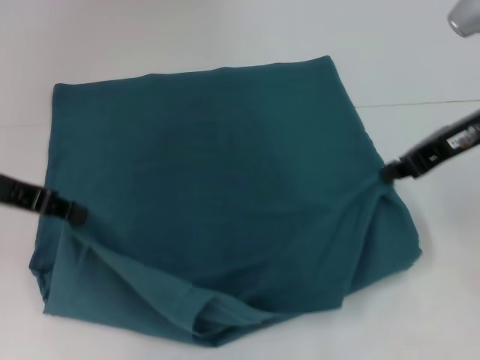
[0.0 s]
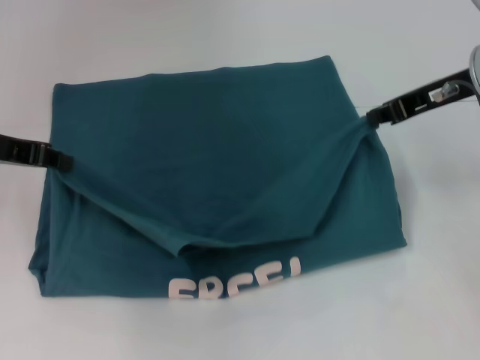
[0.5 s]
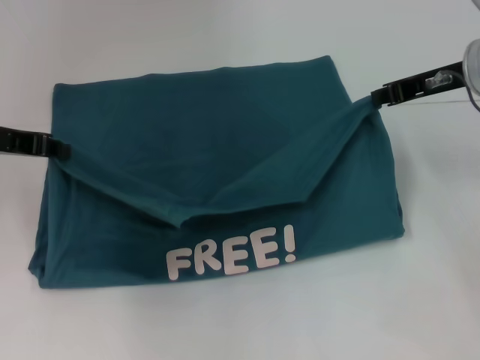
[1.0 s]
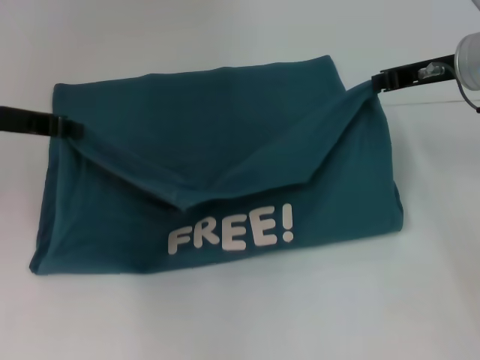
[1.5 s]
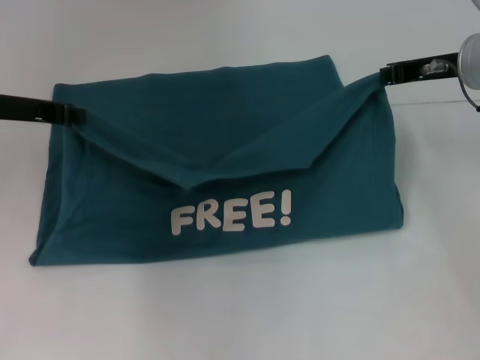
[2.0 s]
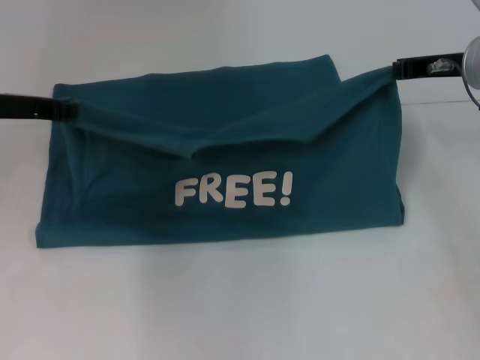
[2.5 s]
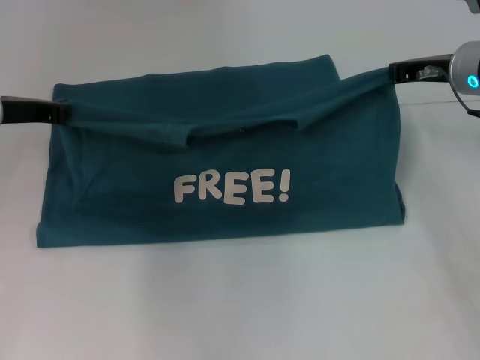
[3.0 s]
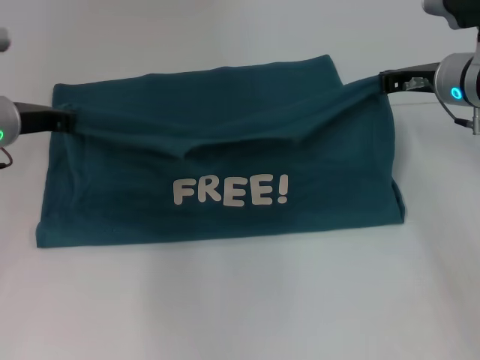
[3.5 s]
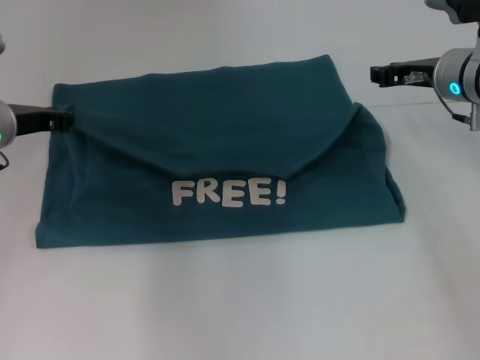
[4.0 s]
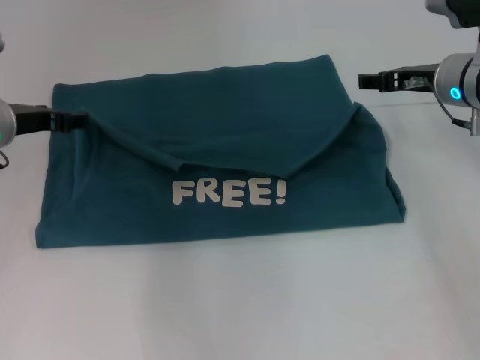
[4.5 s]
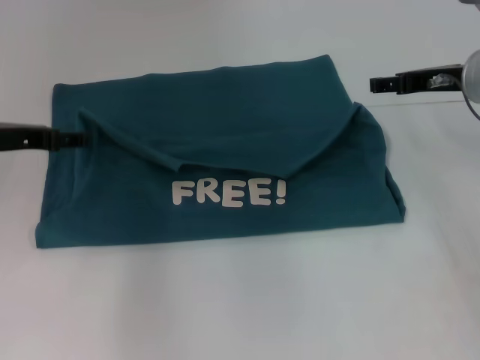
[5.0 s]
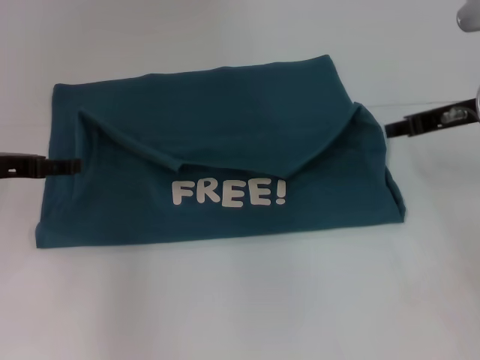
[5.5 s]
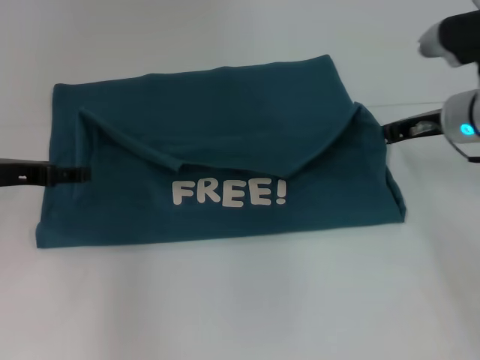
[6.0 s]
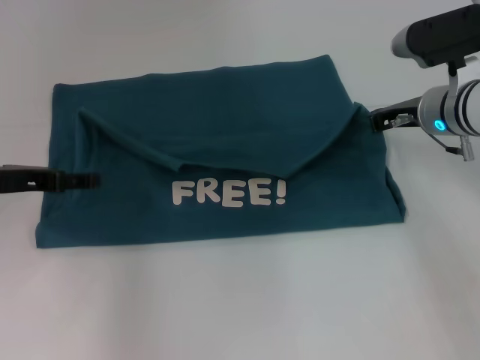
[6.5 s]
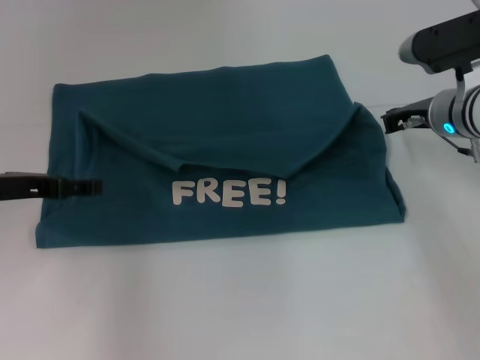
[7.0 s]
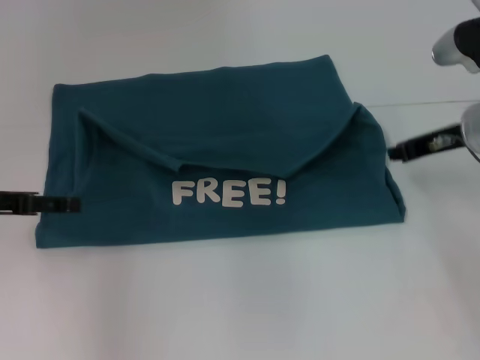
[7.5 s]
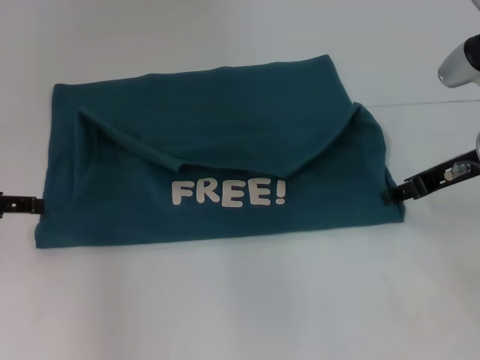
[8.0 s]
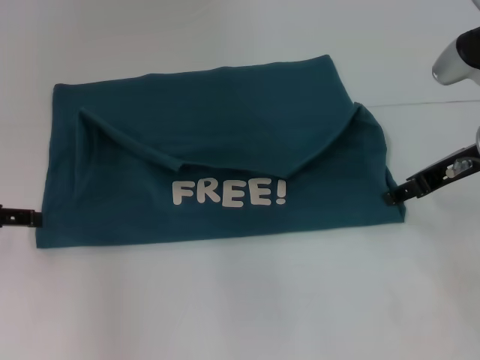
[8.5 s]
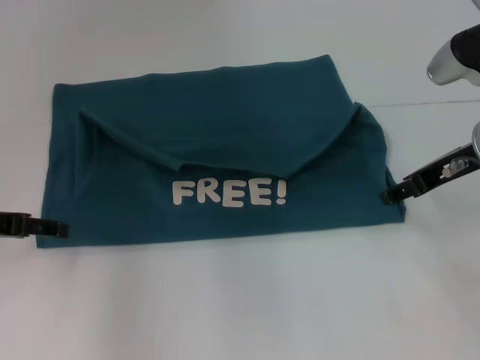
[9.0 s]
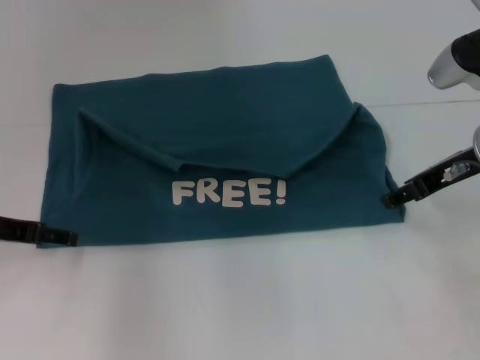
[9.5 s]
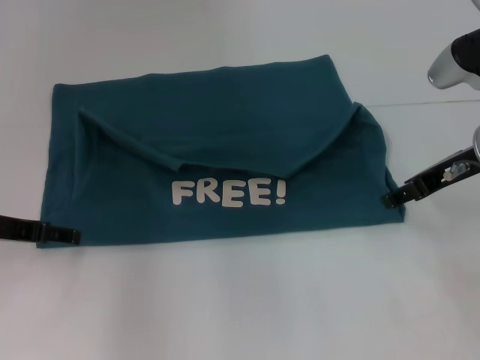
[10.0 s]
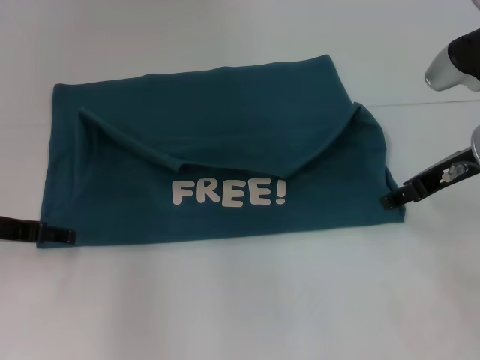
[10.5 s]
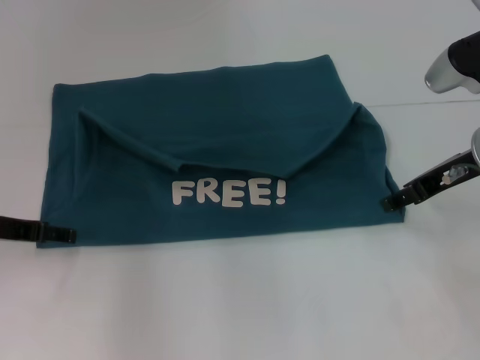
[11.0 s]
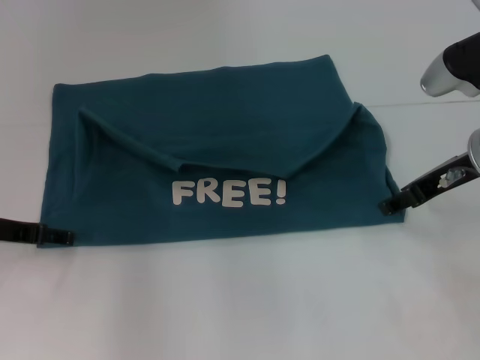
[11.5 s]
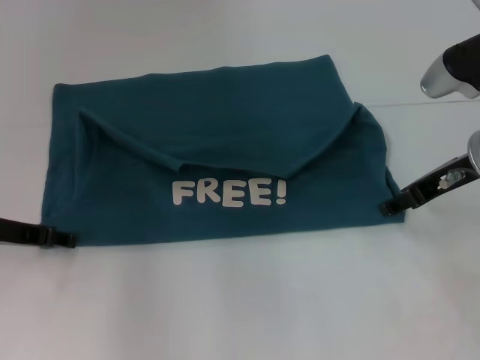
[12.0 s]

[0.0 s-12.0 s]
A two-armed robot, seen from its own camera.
Step, 0.0 to 4.5 s: Fold the clothes to the left.
Step, 0.0 to 4.5 s: Fold the clothes to the right.
0.0 to 2.0 s: The two grippers go roughly 5 cm forward.
2.0 to 4.0 s: The left gripper heads downward, covering roughly 5 cm.
4.0 to 6.0 s: The right gripper opens, then closes again. The left gripper heads backward, covering roughly 5 cm, and opens up.
6.0 to 8.0 s: The left gripper moves roughly 5 cm, while the right gripper heads backward, covering roughly 5 cm, and opens.
8.0 to 10.0 s: The left gripper changes place by about 5 cm.
10.0 to 12.0 s: The grippers move only a little.

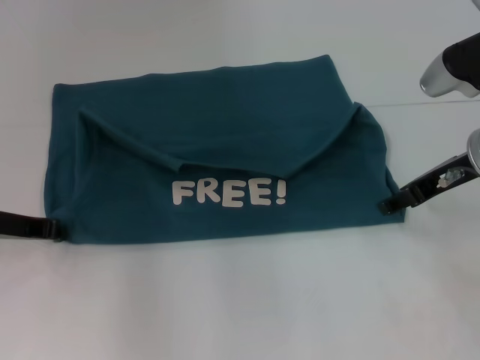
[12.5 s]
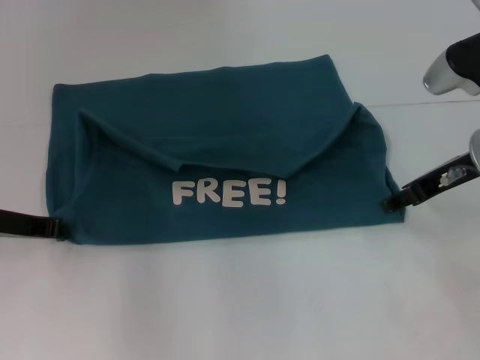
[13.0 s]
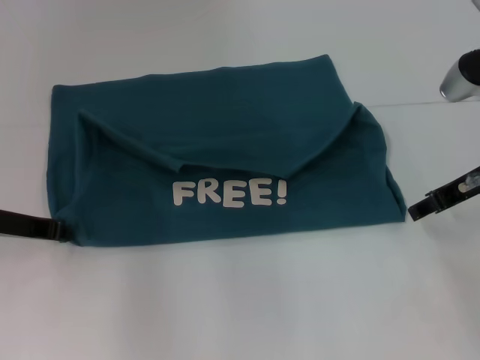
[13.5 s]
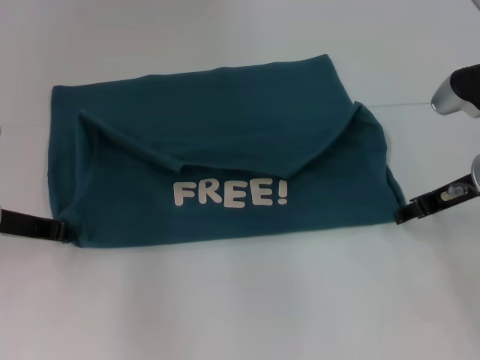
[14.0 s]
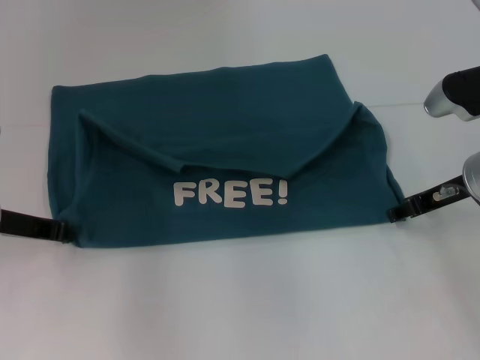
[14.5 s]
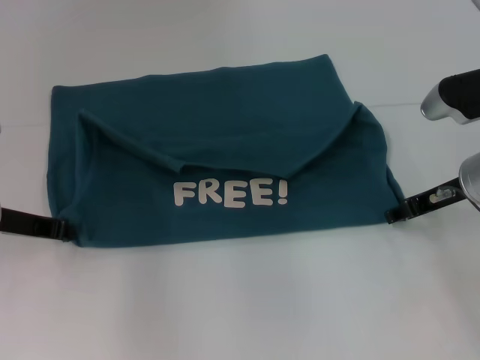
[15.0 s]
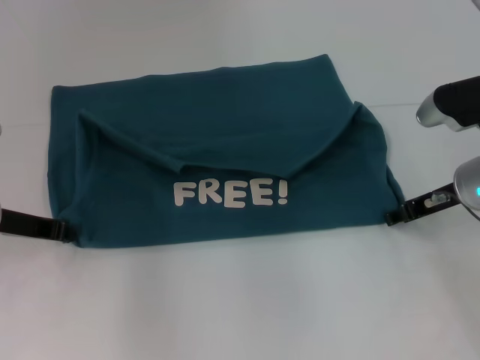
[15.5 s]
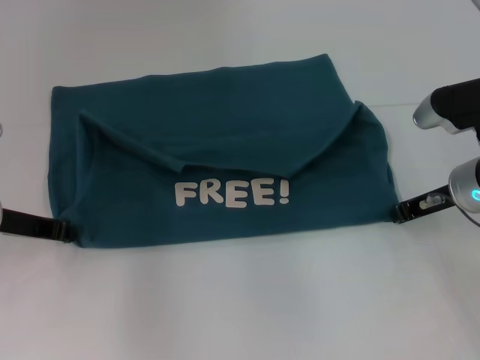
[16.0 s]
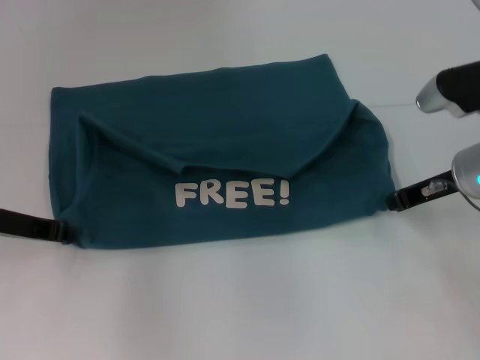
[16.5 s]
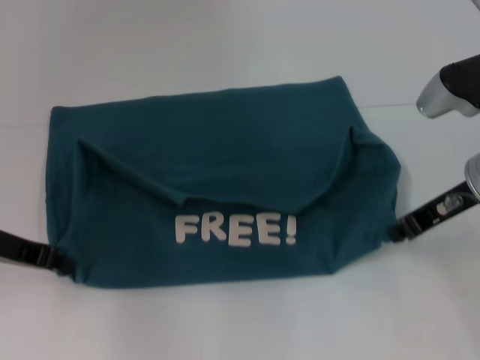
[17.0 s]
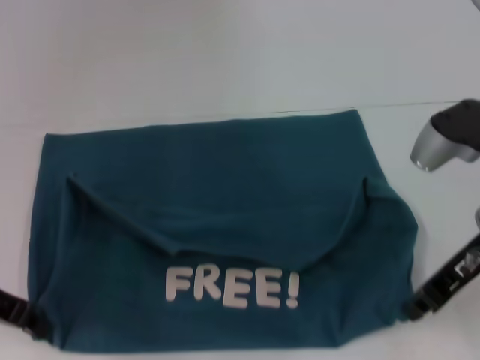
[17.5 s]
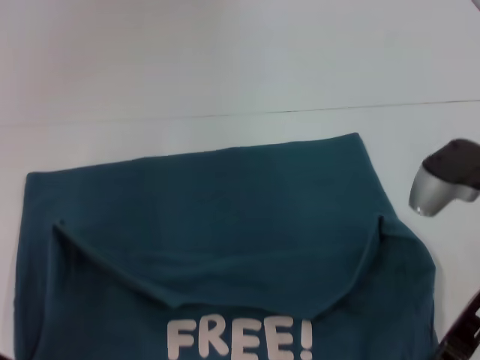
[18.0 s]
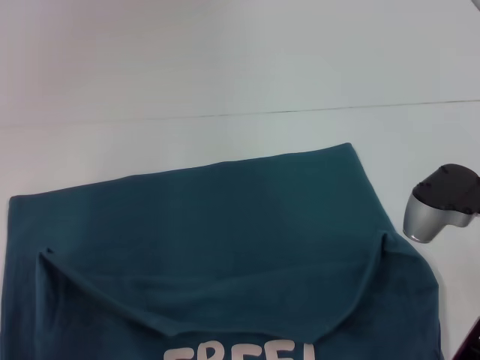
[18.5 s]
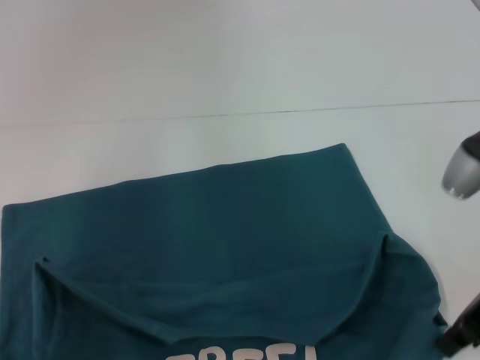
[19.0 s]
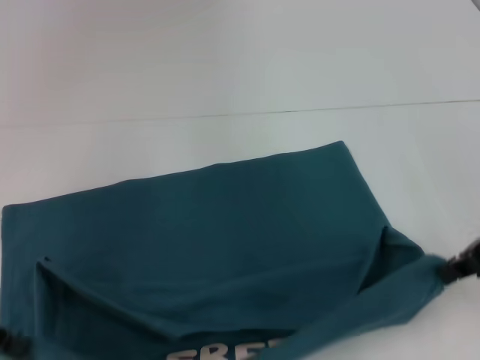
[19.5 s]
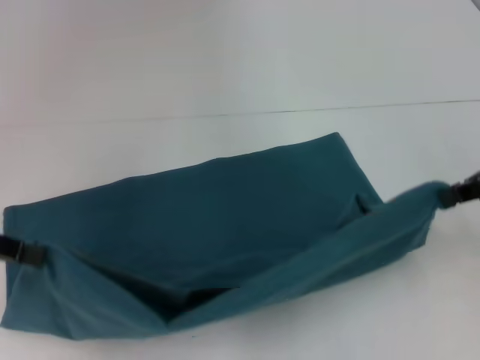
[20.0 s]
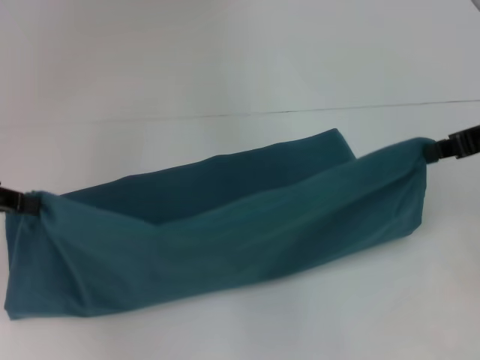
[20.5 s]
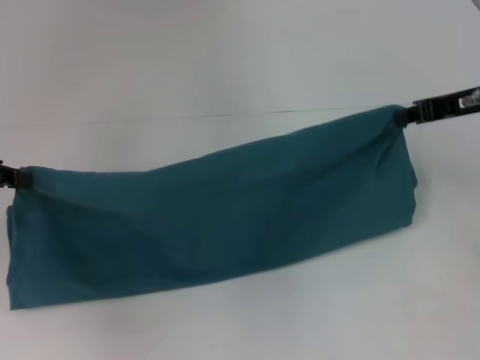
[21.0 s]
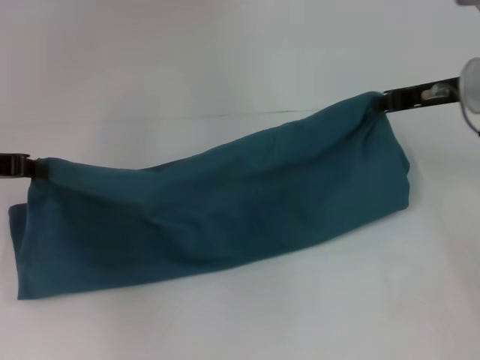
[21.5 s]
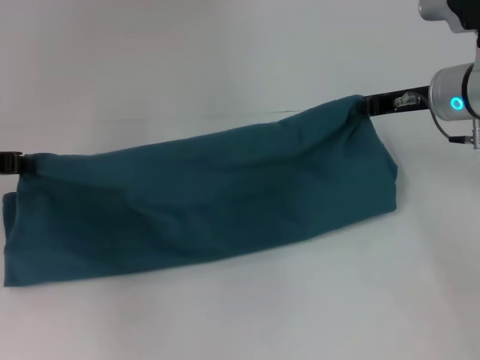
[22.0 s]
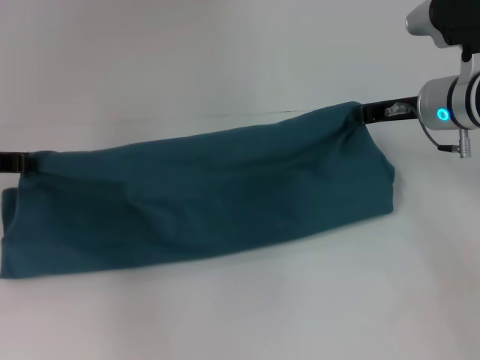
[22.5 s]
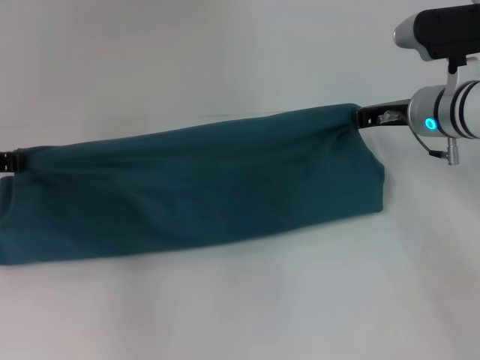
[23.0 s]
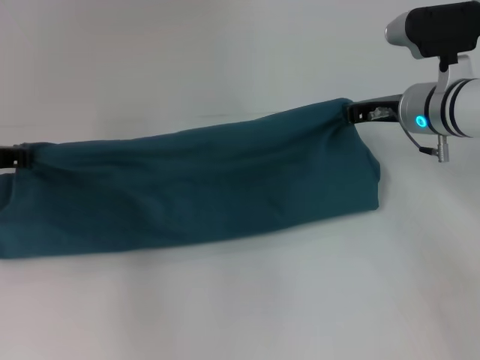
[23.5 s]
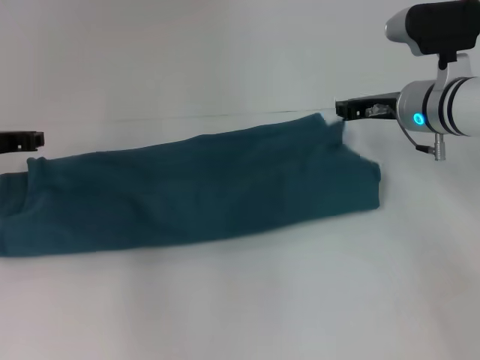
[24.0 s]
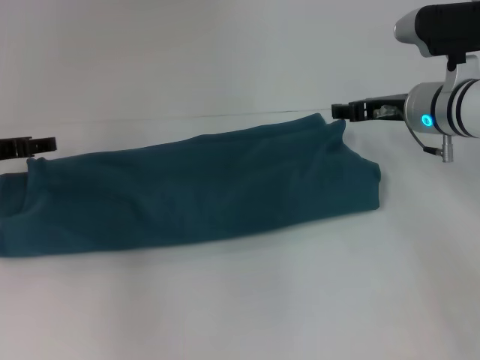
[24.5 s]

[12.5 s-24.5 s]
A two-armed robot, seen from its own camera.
Step, 12.5 to 18.5 s: Pull the clothes with your left hand.
Step, 12.5 to 18.5 s: Pull the clothes with your right hand.
12.5 to 14.5 s: The grippers make only small movements.
14.5 to 16.5 s: The right gripper closes.
16.5 to 18.5 s: Both grippers travel together backward, some 10 cm.
18.5 to 20.5 s: The left gripper moves upward, forward and to the left, approximately 10 cm. Meanwhile the right gripper travels upward, to the right and forward by approximately 15 cm.
20.5 to 22.5 s: The left gripper shifts approximately 10 cm forward and downward; the right gripper moves forward, downward and to the left, approximately 15 cm.
22.5 to 24.5 s: The left gripper opens its fingers. The right gripper opens its fingers.

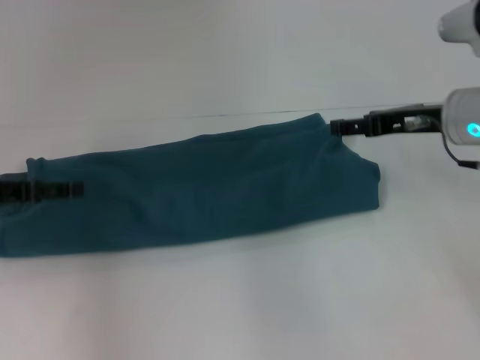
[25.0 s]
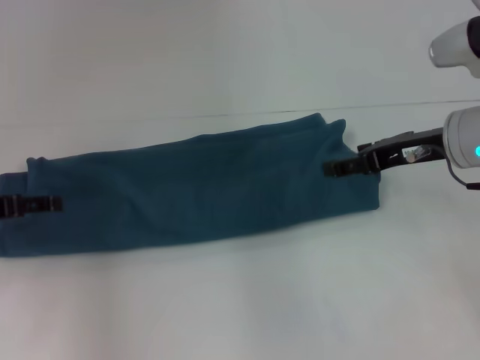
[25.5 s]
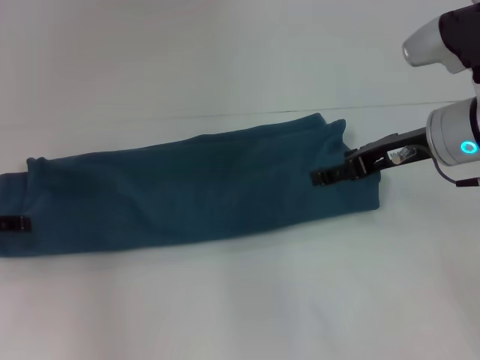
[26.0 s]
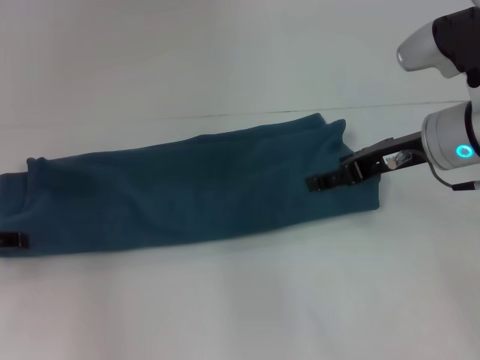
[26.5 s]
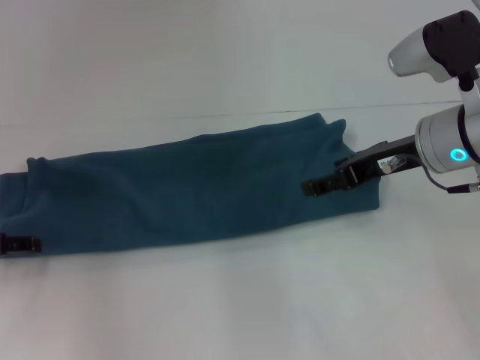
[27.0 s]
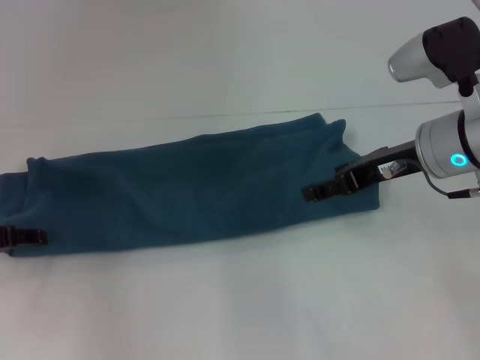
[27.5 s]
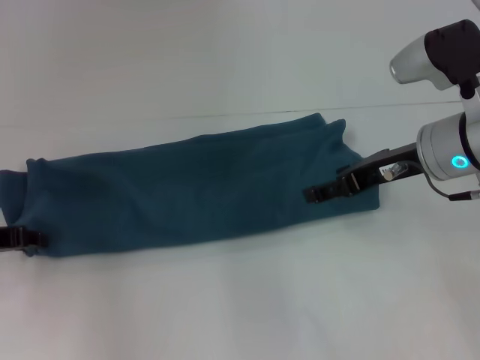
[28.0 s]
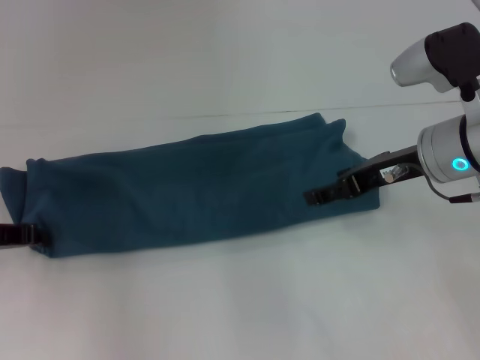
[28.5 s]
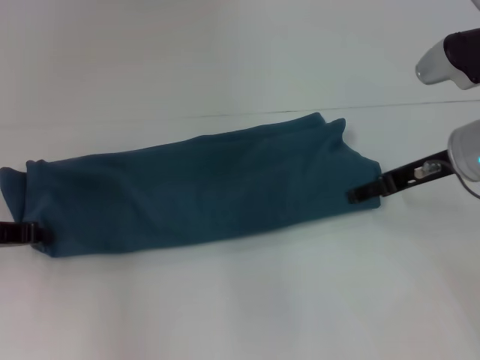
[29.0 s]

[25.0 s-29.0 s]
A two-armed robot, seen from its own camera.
27.0 to 29.0 s: The left gripper closes up.
